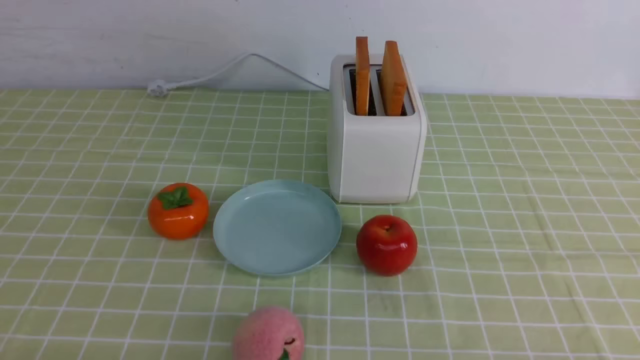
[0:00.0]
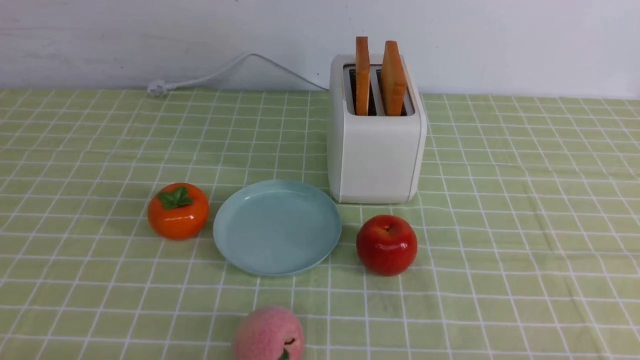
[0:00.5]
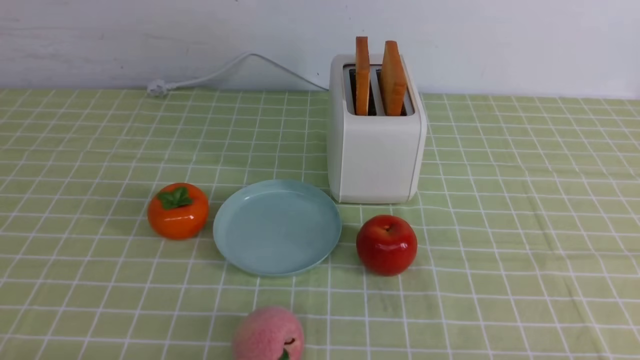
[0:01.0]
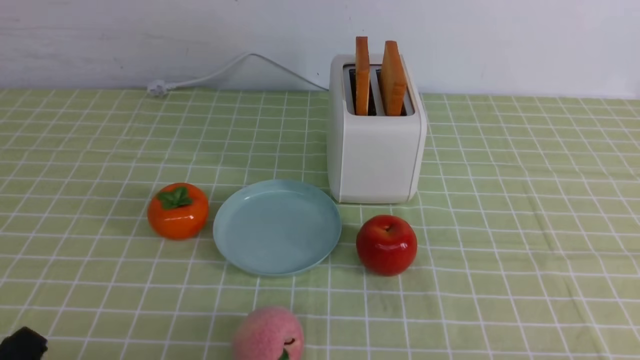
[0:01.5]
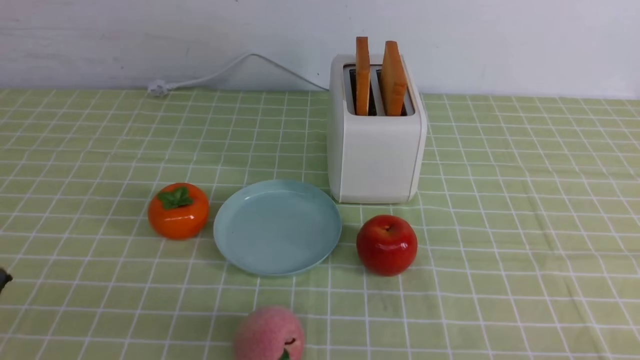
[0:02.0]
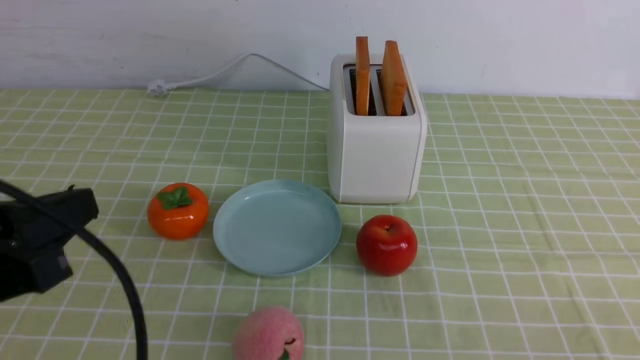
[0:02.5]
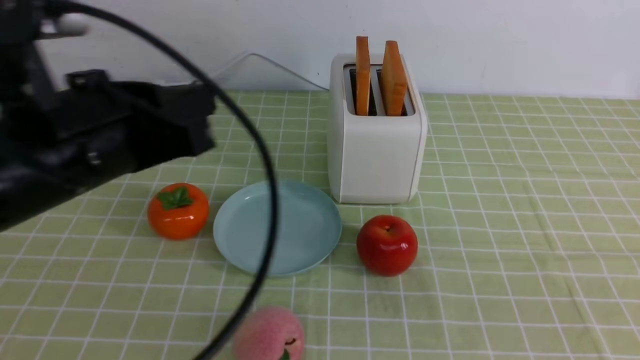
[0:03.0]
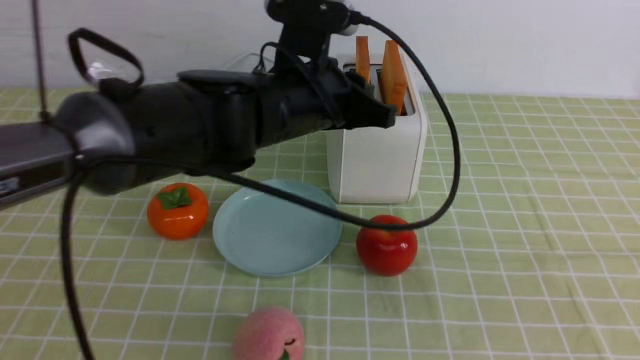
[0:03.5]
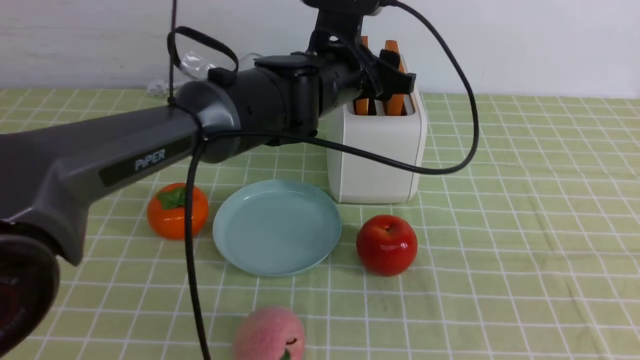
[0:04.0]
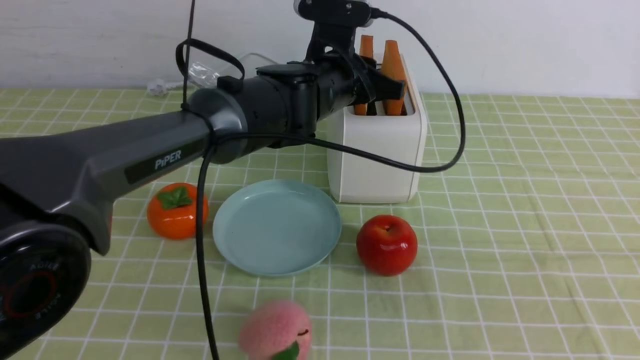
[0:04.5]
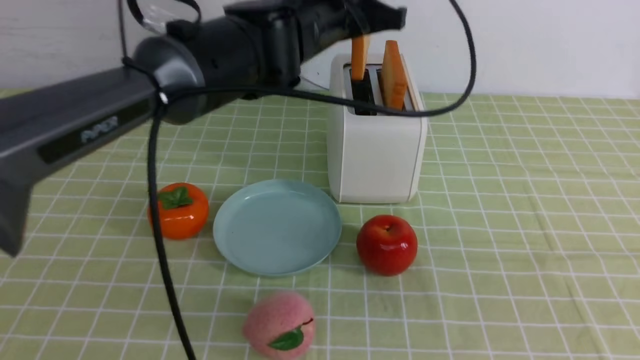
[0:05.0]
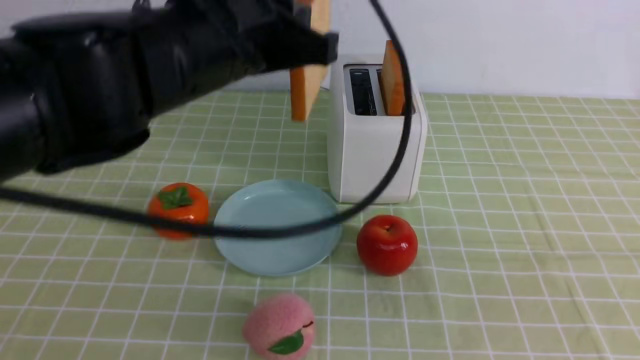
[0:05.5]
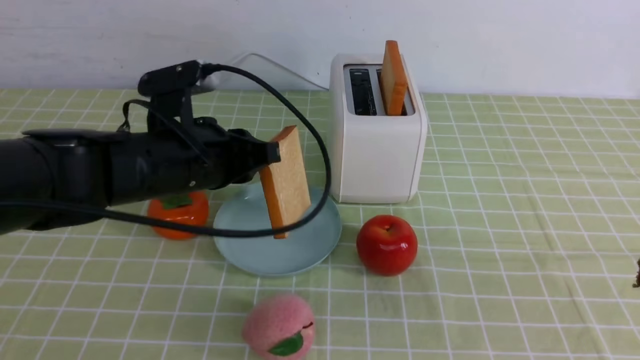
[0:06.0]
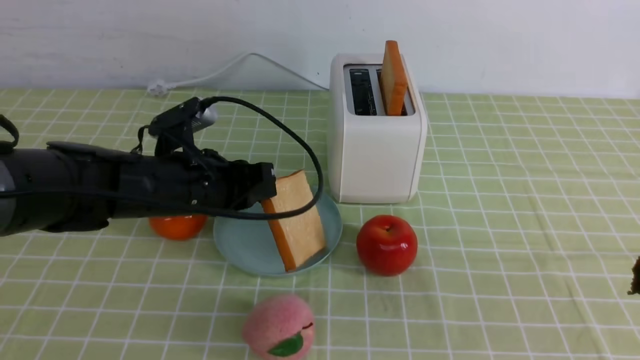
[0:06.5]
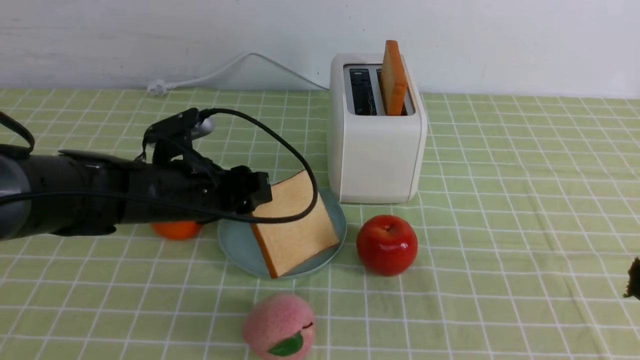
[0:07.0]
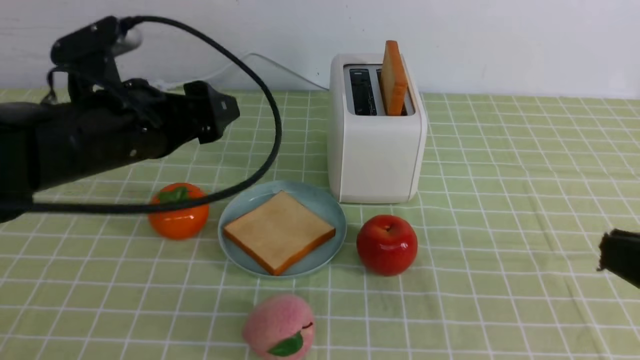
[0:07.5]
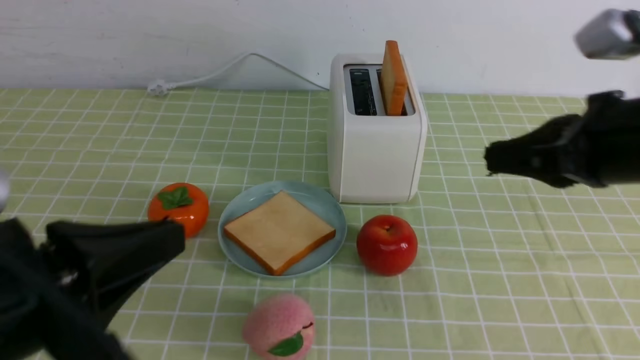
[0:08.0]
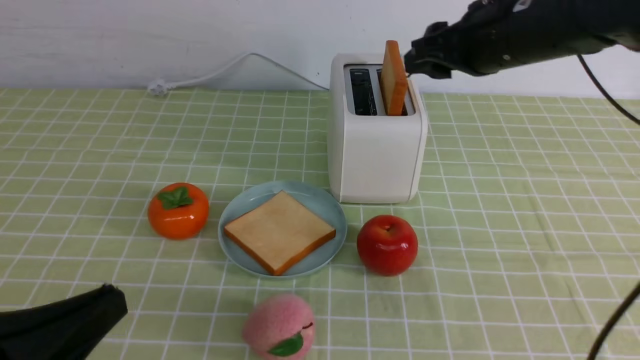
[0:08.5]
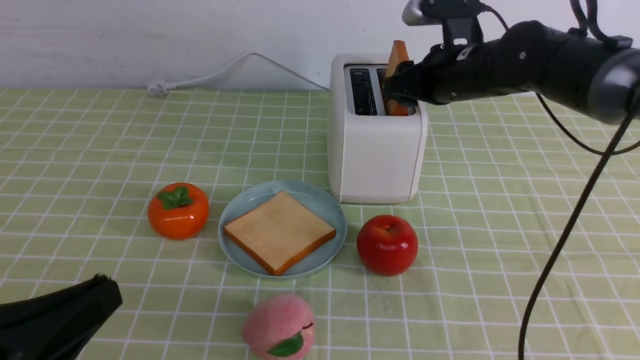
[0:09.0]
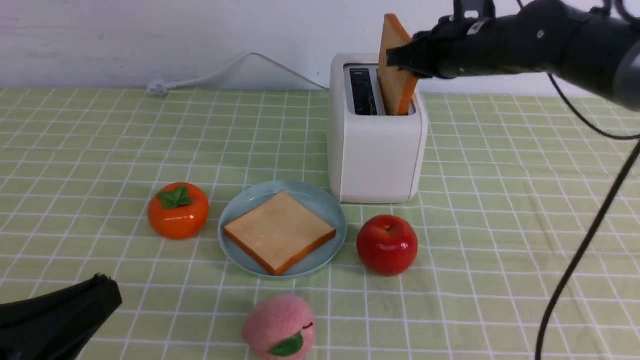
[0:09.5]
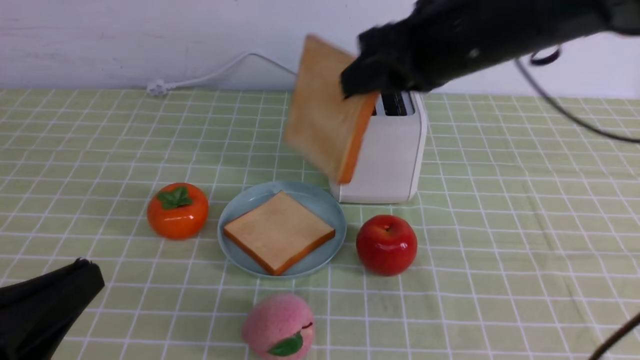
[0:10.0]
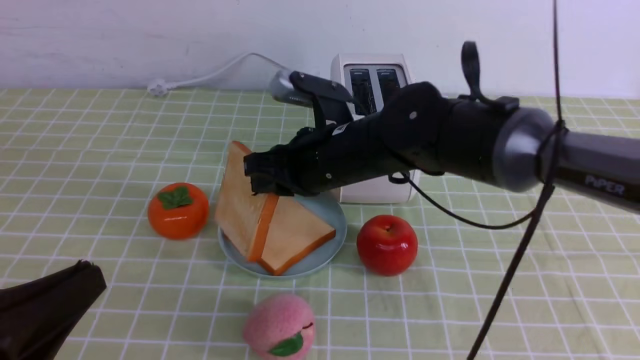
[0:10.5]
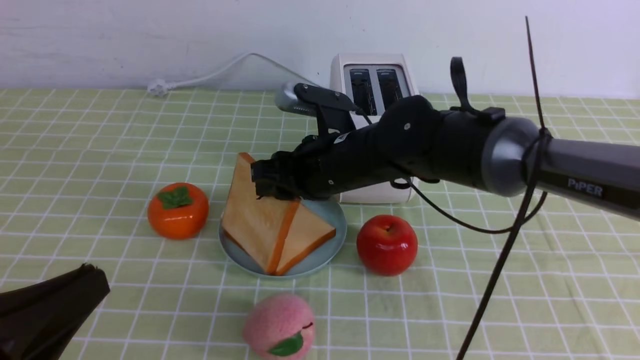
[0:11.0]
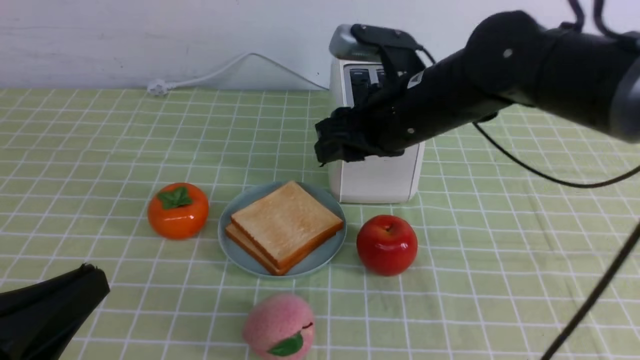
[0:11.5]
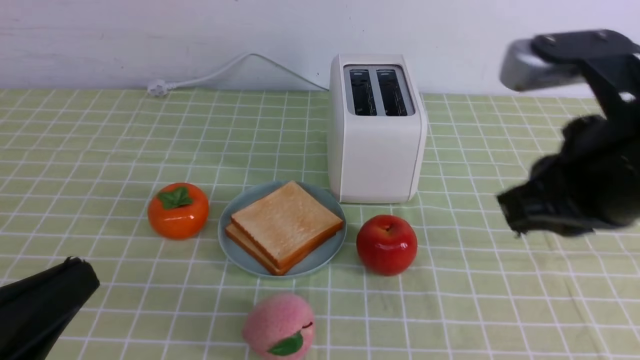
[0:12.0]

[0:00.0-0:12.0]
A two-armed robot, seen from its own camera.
Task of the whole recording: take toasted bread from bread machine on green coffee tablecloth place on plate.
Step, 0:00.0 to 0:04.5: use the left arm to take out a slice of bread.
Step, 0:05.0 to 0:07.5: use the left arm to put a slice of bread into the empty plate.
Step, 0:08.0 to 0:09.5: use the right arm to take out a slice of bread.
Step, 0:10.0 to 0:11.5: use the right arm to put a slice of bread into the plate.
0:02.0 to 0:04.0: The left gripper goes about 40 cm forward and to the right, and opens up. Meanwhile the right gripper goes about 15 cm upward, and closes its fingers.
0:04.0 to 0:06.0: The left gripper shifts about 15 cm to the left and backward, and closes.
0:06.0 to 0:08.0: The right gripper travels forward by some 20 cm; the left gripper travels backward by approximately 20 cm, and opens and closes again.
0:08.0 to 0:10.0: The left gripper shifts by roughly 5 cm. The right gripper heads to the left and forward, covering roughly 15 cm, and opens, then closes once more.
0:10.0 to 0:12.0: The right gripper travels backward and to the right by approximately 20 cm, and opens, then closes once more.

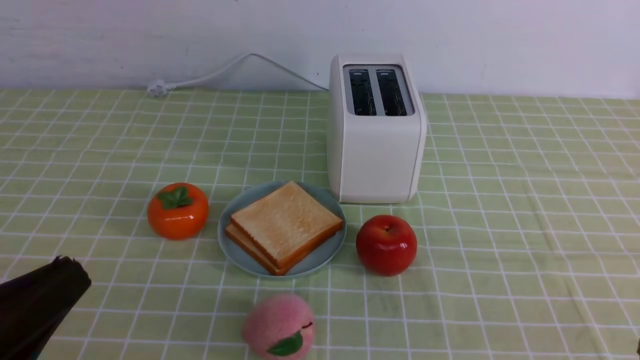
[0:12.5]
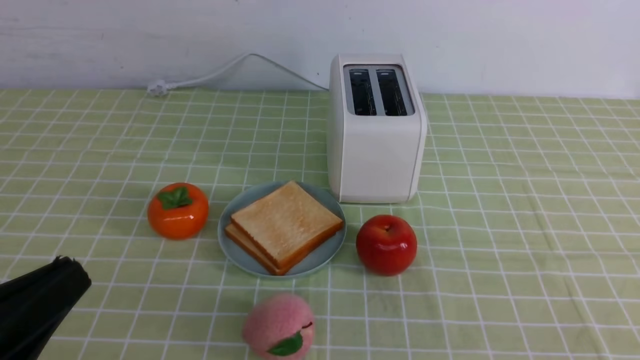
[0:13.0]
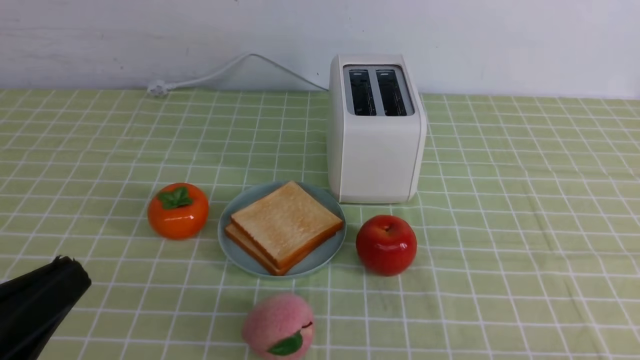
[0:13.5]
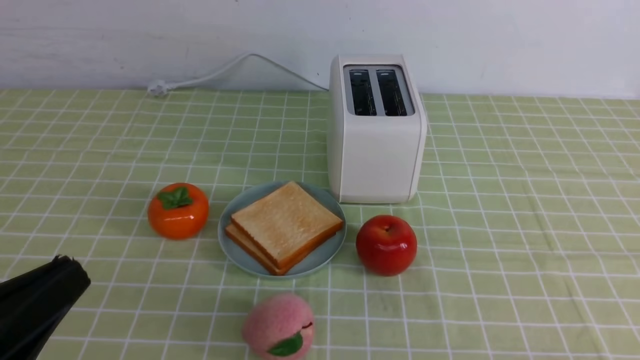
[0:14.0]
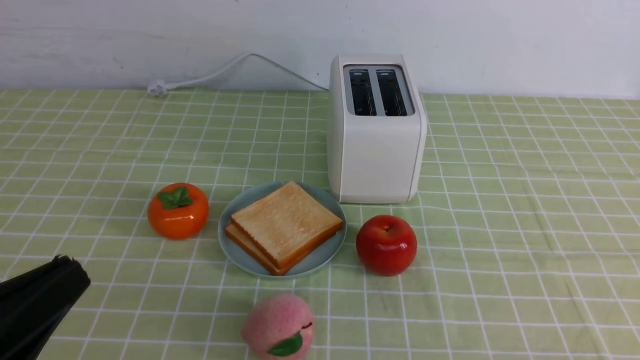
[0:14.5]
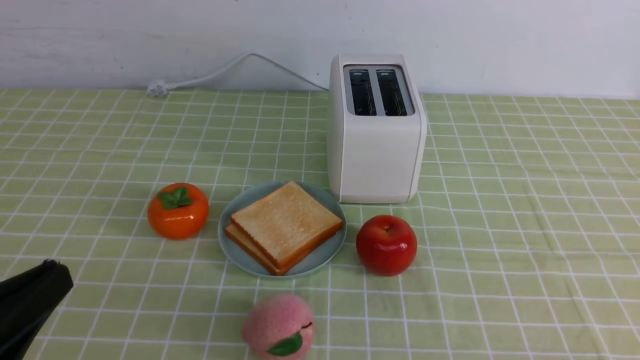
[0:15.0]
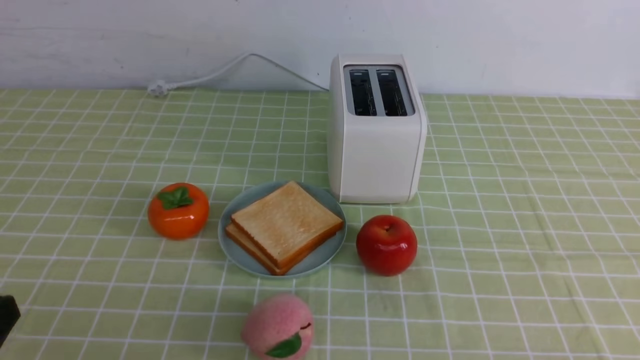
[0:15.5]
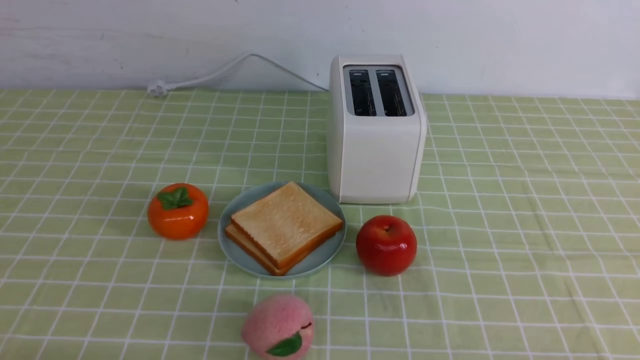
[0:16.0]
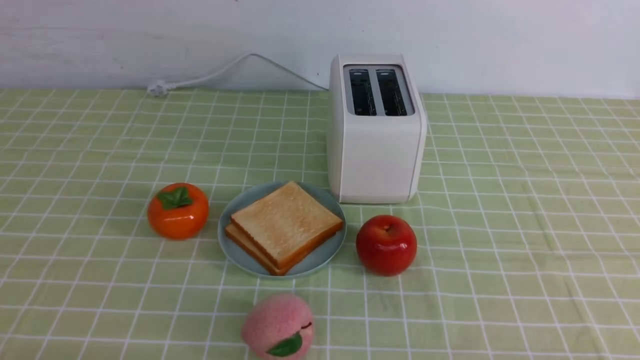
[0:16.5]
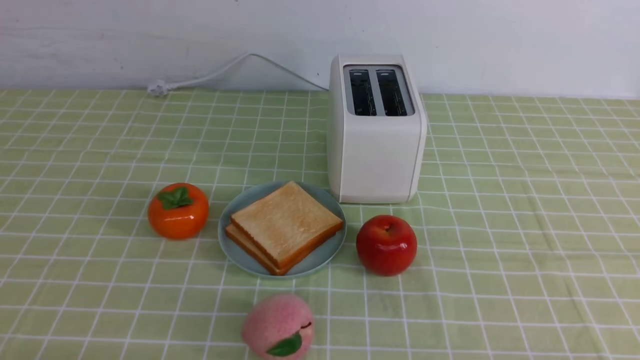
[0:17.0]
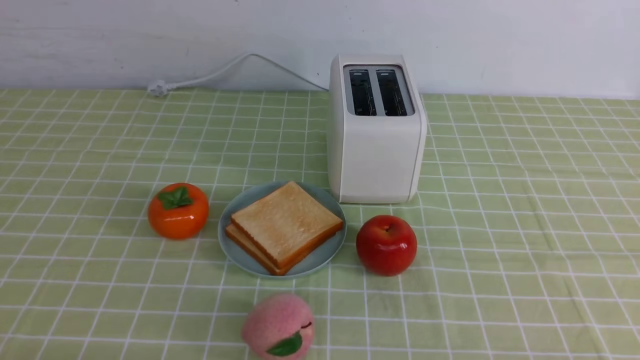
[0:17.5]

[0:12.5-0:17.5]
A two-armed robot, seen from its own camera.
Task of the whole recording: take toasted bread from bread machine on green coffee tablecloth place on plate.
0:15.0 to 0:17.5: The left gripper shifts some 10 cm downward.
